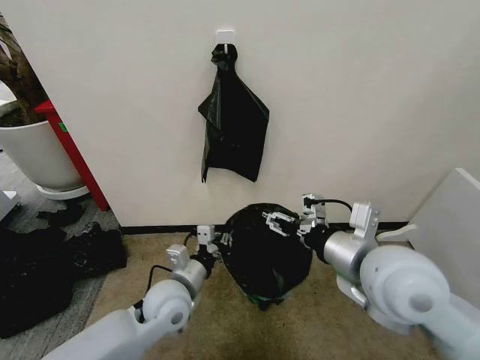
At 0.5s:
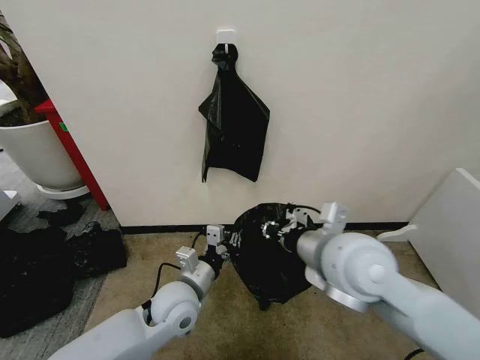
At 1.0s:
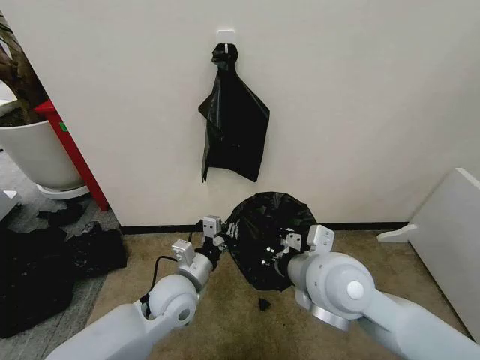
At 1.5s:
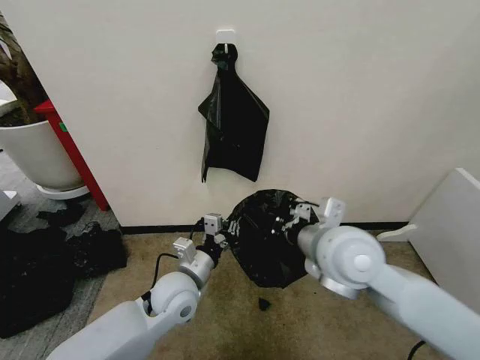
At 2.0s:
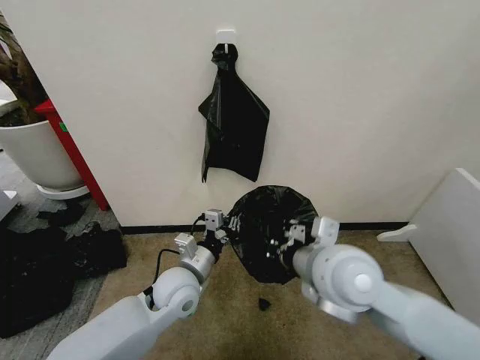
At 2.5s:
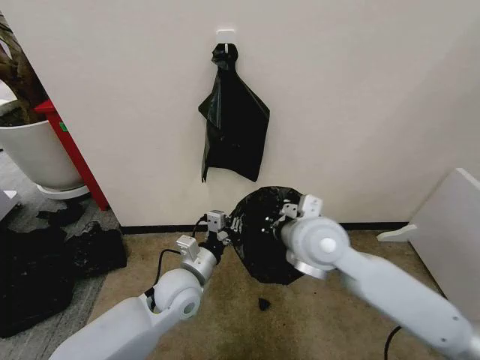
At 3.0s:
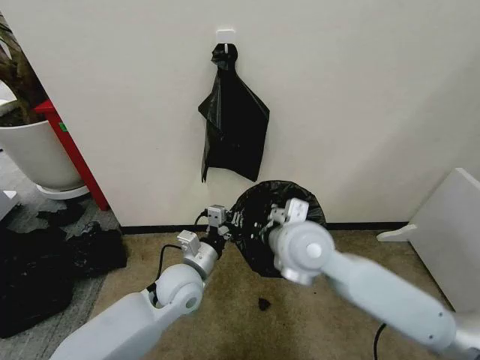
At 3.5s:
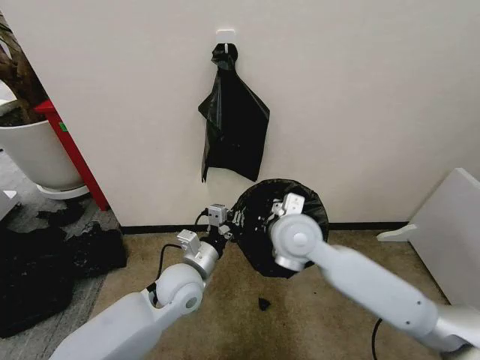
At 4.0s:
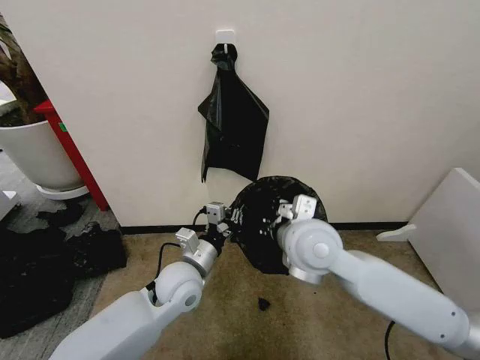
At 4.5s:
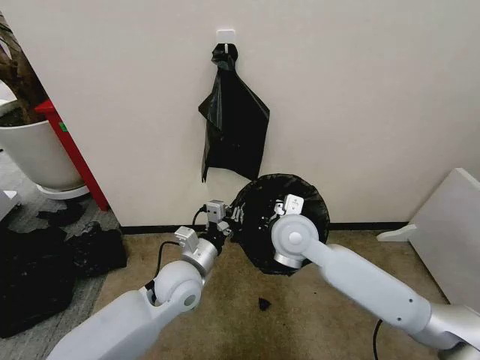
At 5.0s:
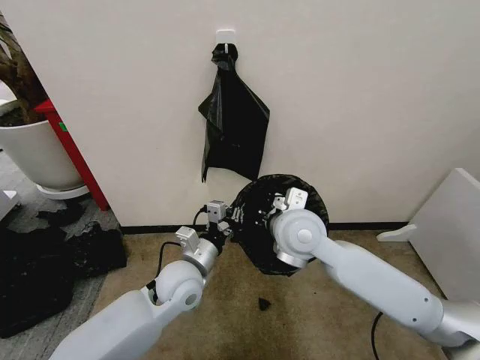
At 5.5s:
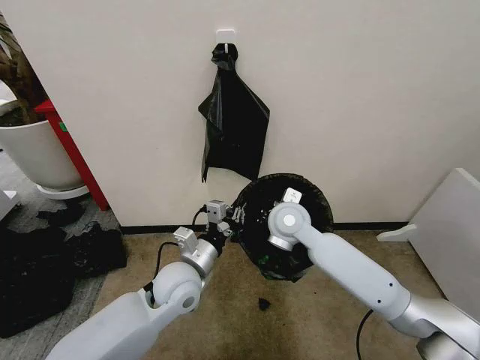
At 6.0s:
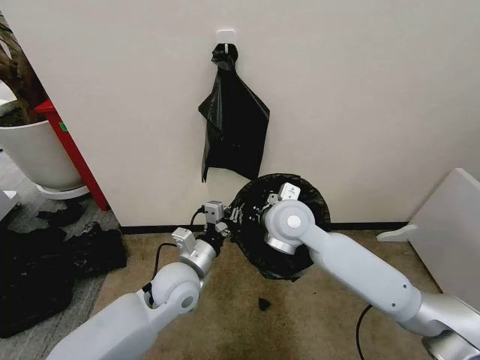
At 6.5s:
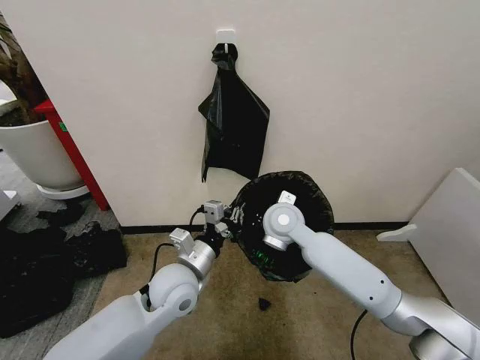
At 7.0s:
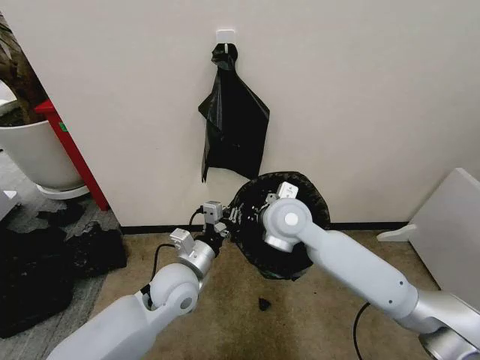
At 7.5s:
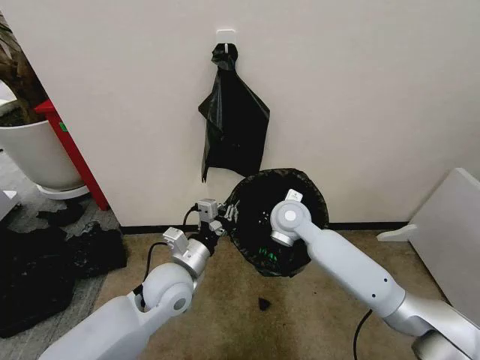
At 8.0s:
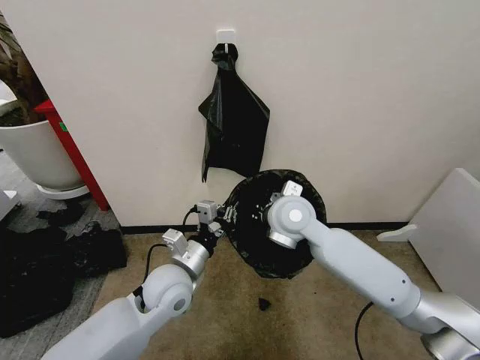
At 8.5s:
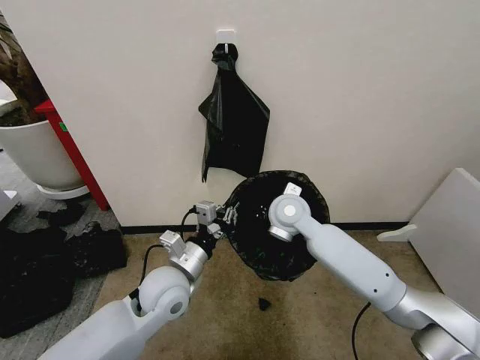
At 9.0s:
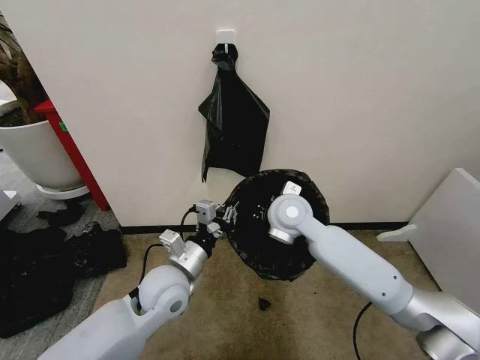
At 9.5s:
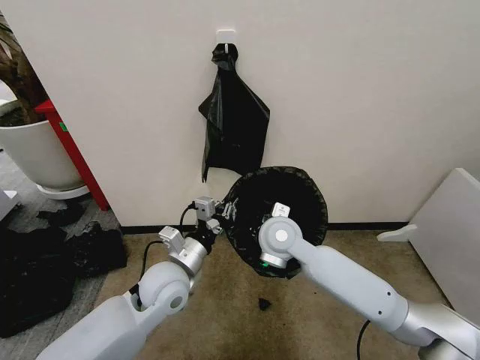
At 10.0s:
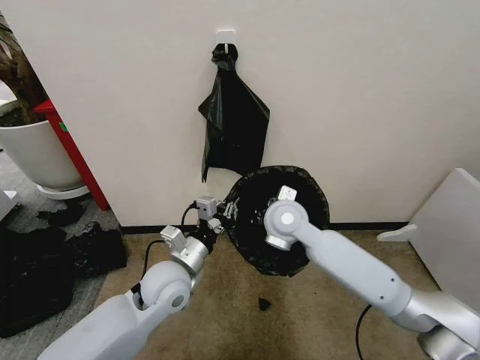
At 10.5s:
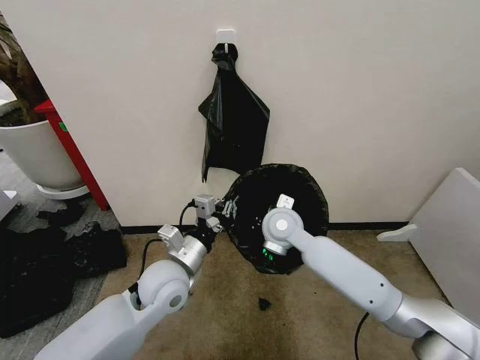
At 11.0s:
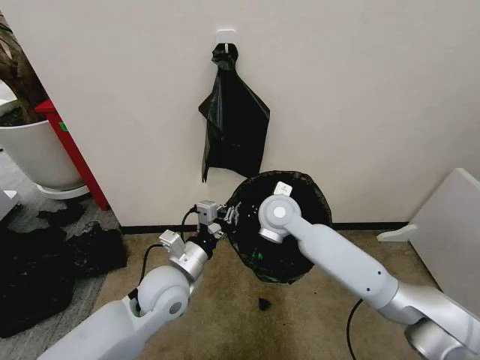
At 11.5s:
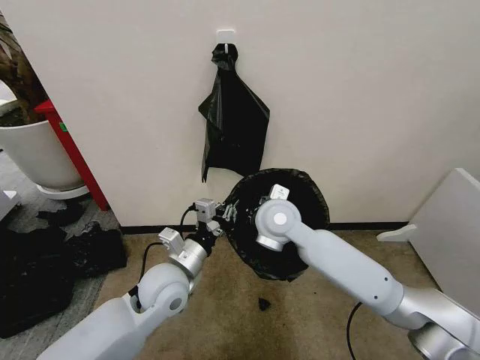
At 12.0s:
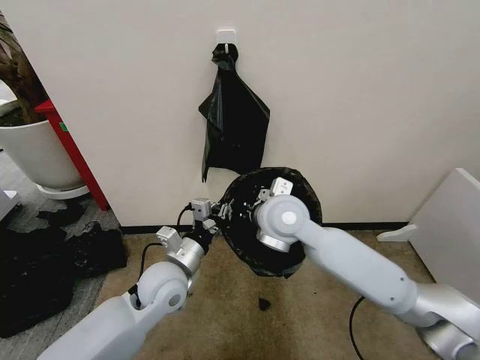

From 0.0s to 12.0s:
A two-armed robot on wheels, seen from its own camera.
Task of the whole recording: Place the garbage bag over the trash bin.
From 0.0s to 2.0s: The right gripper moves to the left, about 5 cm, and closes up.
From 2.0s to 4.0s: The right gripper heads forward, covering roughly 5 cm.
From 4.0s to 6.0s: The right gripper shifts some 5 cm forward.
From 6.0s to 8.0s: The right gripper moves up and down over approximately 5 cm, changing direction 3 times.
From 8.0s to 10.0s: The grippers move only a little.
From 10.0s to 12.0s: The right gripper heads upward, covering roughly 5 cm.

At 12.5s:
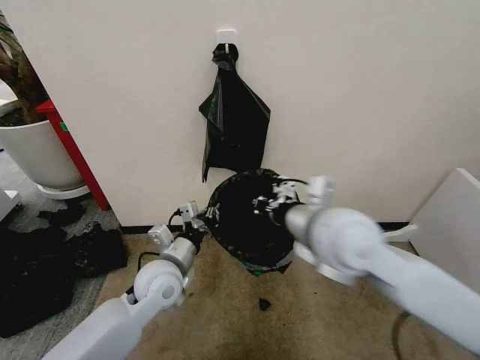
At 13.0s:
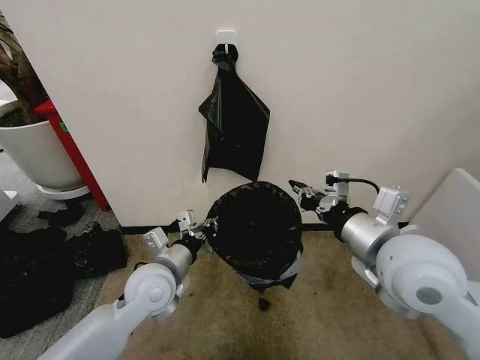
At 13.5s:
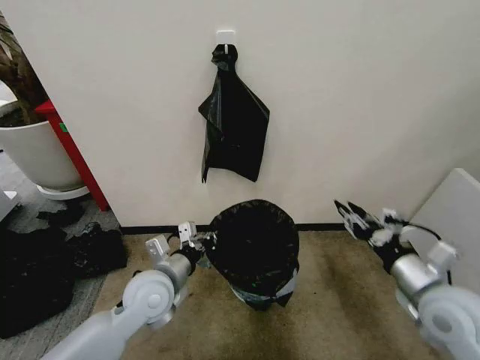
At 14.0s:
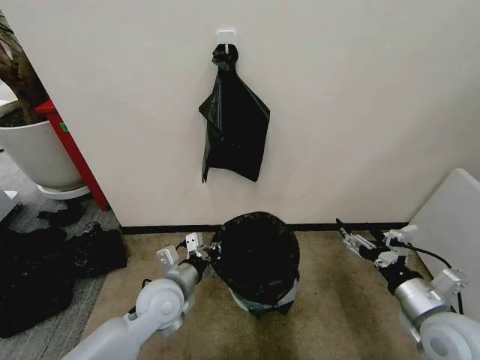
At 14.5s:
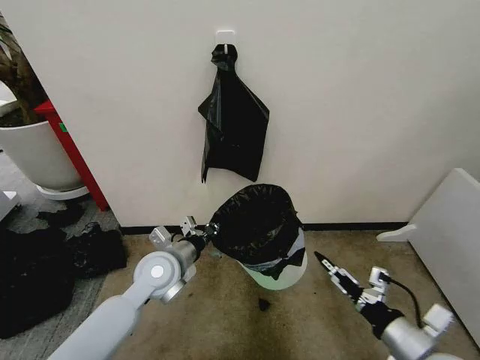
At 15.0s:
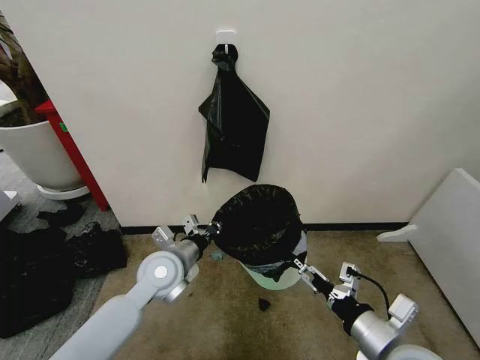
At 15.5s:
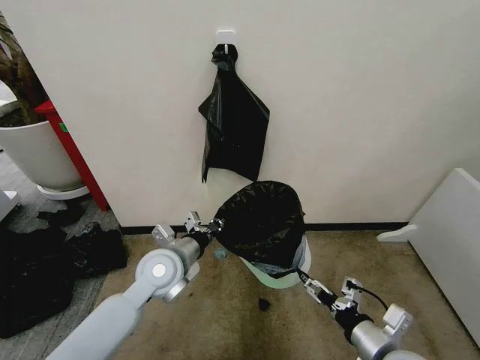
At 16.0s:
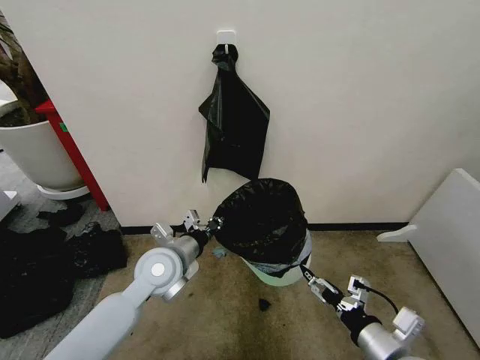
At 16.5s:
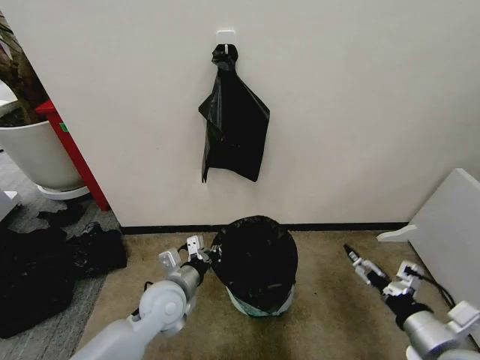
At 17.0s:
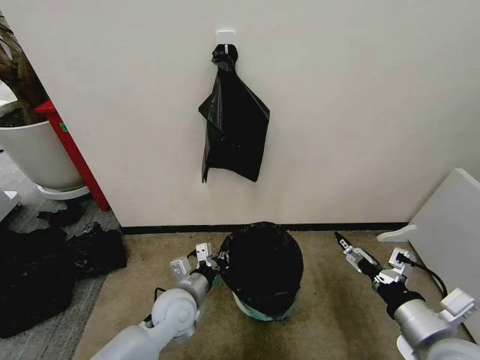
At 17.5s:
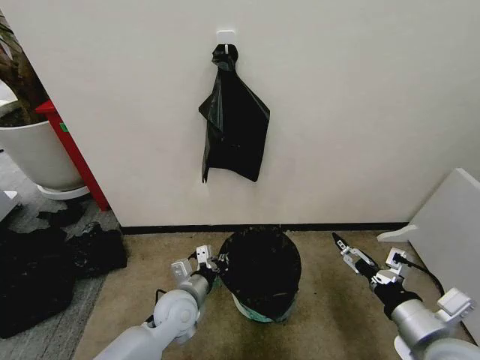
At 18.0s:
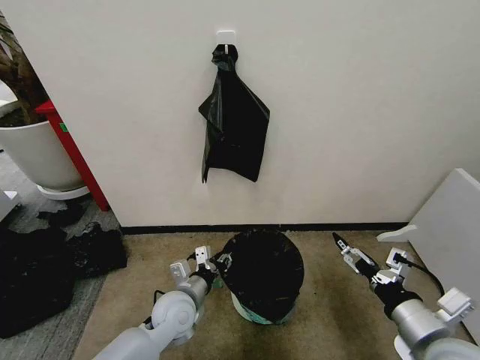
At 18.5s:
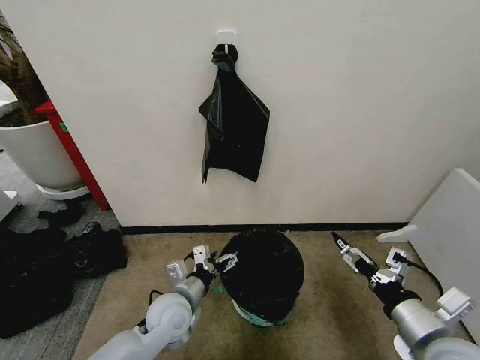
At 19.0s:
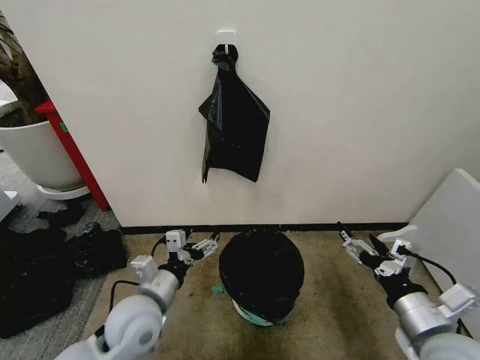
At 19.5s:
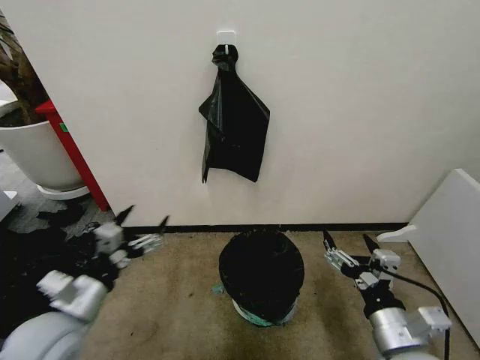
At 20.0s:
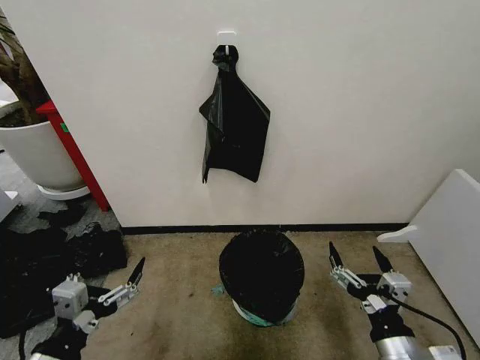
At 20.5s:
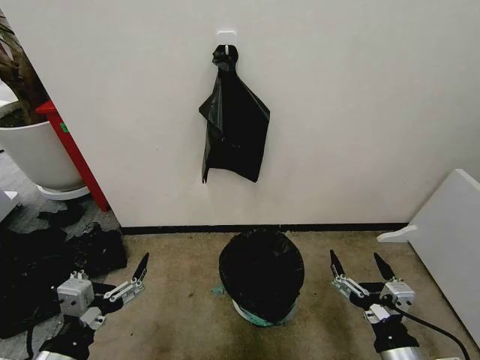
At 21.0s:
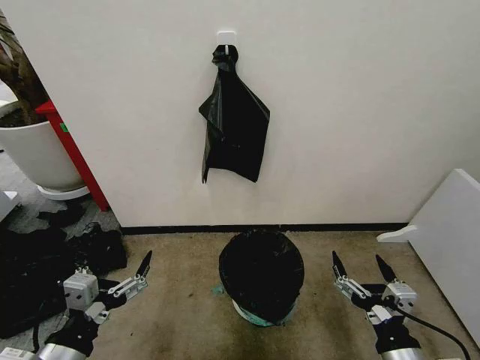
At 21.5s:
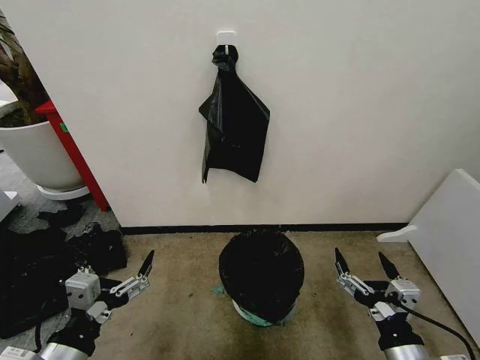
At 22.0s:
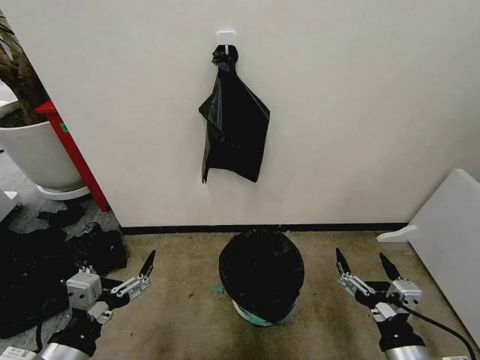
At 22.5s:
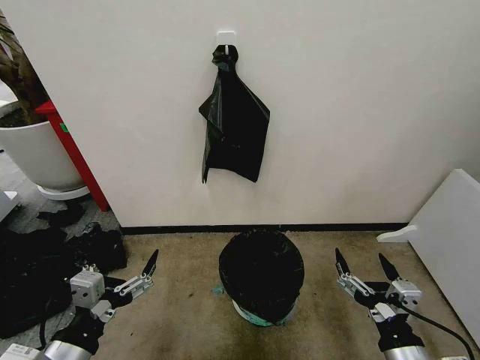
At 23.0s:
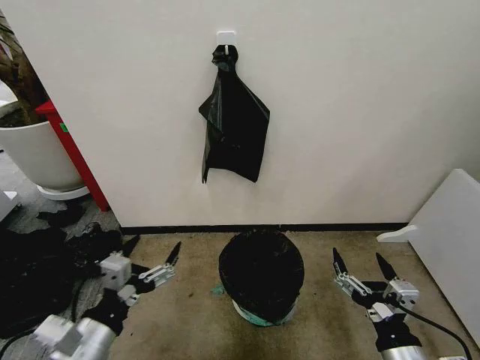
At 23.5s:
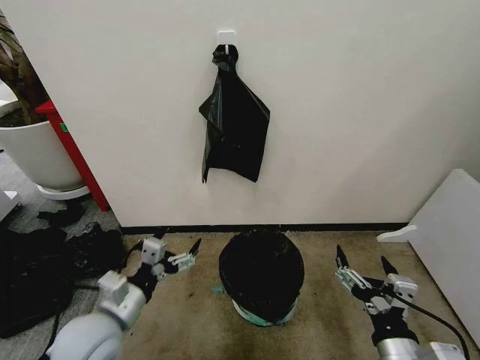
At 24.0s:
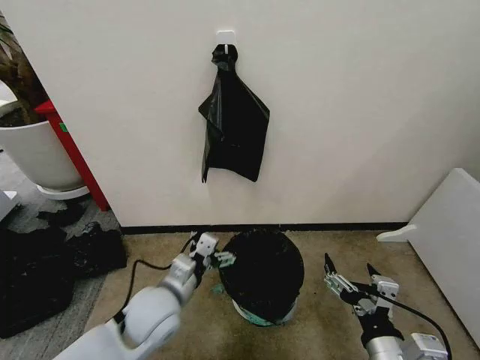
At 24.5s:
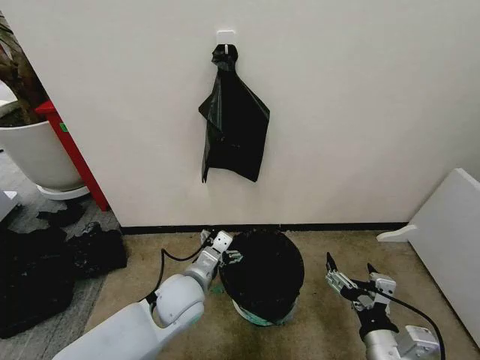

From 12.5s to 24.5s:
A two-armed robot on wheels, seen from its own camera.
Task of the whole recording: Place the garbage bag over the trash bin.
From 12.5s to 14.5s: The right gripper moves downward, to the right and backward, roughly 30 cm, and opens up.
From 14.5s to 16.5s: The left gripper travels downward by about 5 cm, while the right gripper moves approximately 5 cm to the left and comes back.
From 16.5s to 18.5s: The left gripper opens.
From 18.5s to 20.5s: The left gripper shifts approximately 25 cm backward, to the left and upward, while the right gripper is displaced backward and downward by about 10 cm.
From 20.5s to 22.5s: The two grippers keep their place.
From 22.5s to 24.5s: The left gripper is displaced forward, to the right and downward by approximately 25 cm.

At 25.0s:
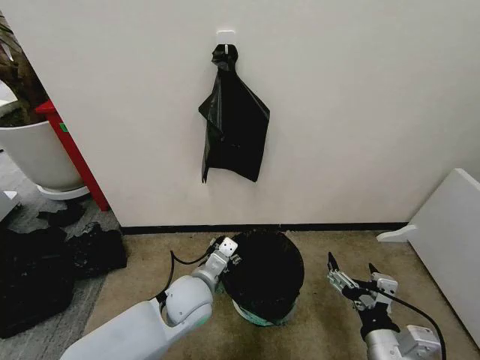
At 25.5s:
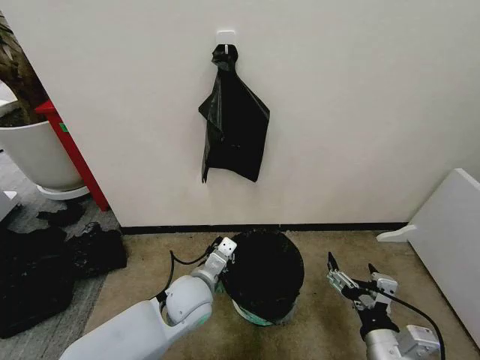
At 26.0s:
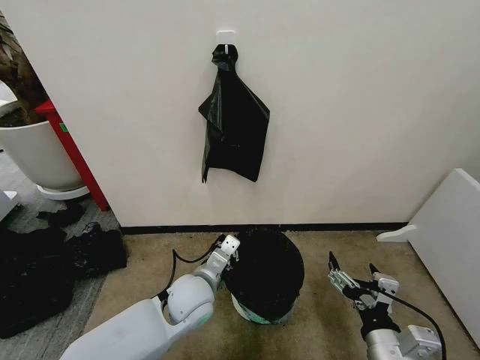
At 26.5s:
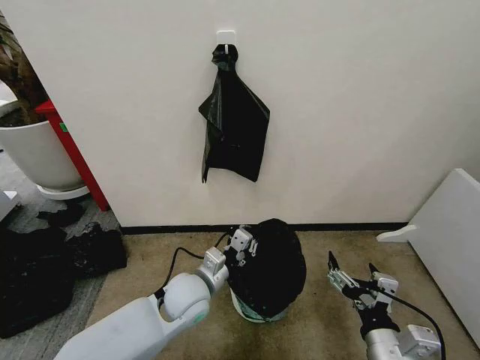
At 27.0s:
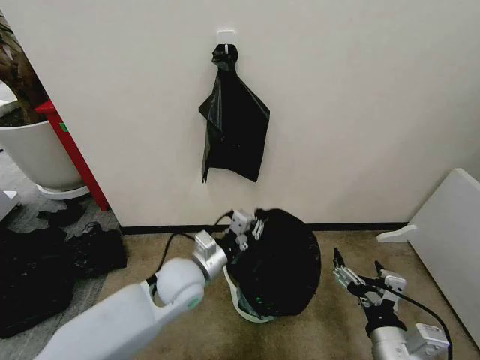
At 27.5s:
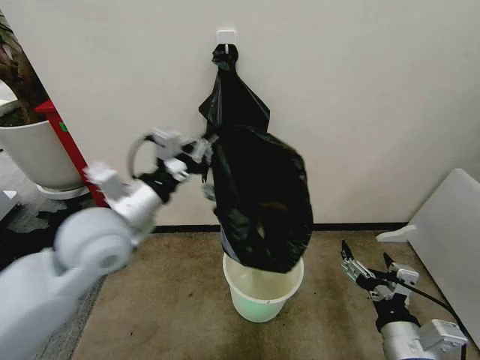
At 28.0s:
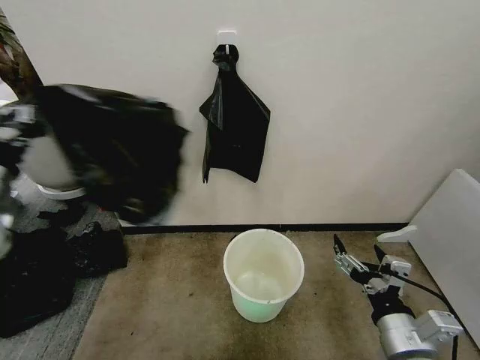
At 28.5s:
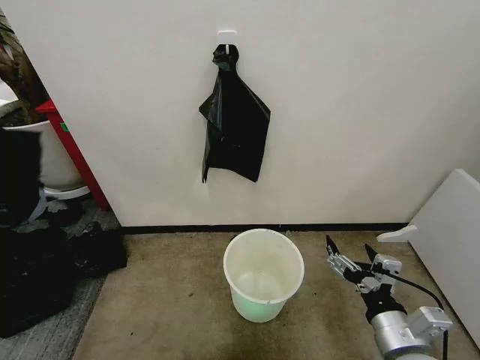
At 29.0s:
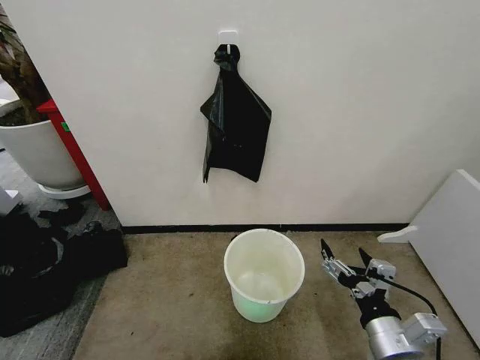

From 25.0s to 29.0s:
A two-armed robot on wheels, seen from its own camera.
Task of the whole recording: Place the garbage bag over the trash bin.
From 25.0s to 27.0s: The left gripper ends up approximately 5 cm from where it was, and closes.
From 27.0s to 29.0s: The left gripper travels to the left by about 50 cm, and opens.
